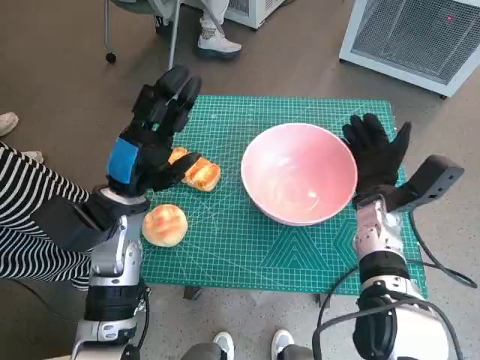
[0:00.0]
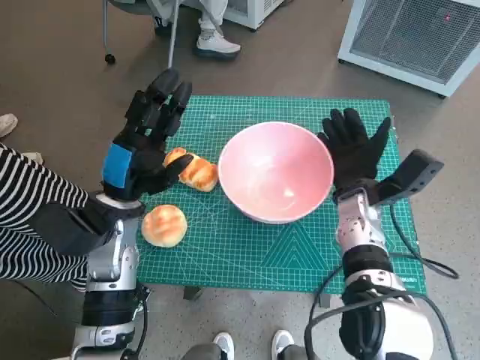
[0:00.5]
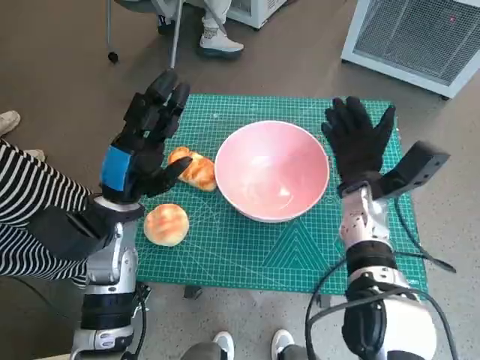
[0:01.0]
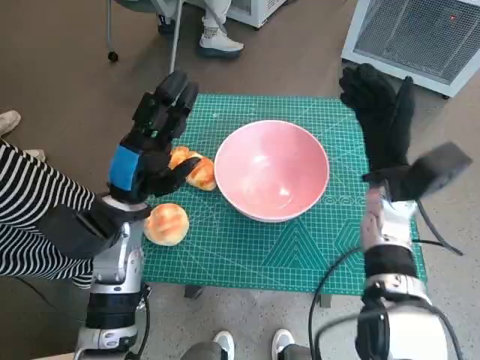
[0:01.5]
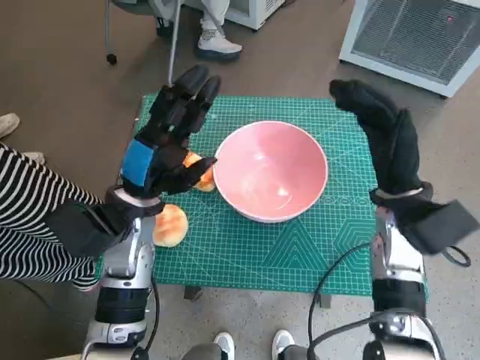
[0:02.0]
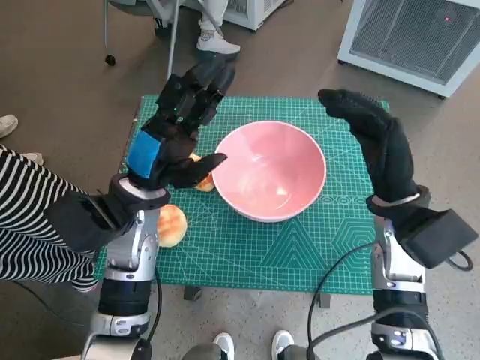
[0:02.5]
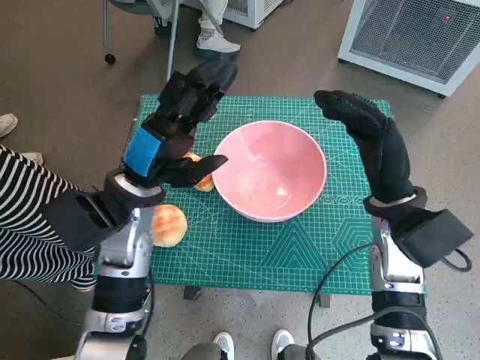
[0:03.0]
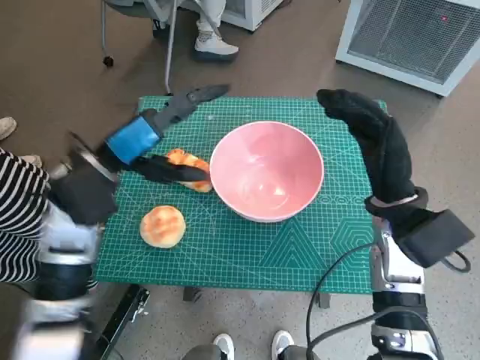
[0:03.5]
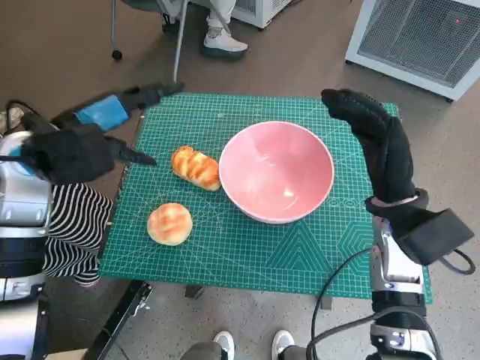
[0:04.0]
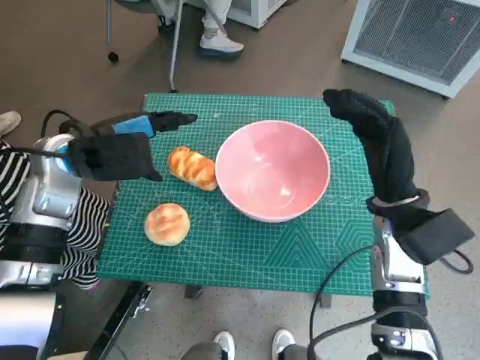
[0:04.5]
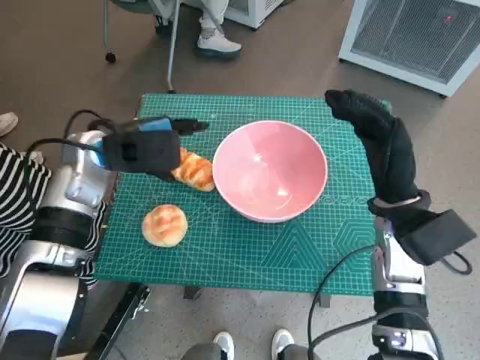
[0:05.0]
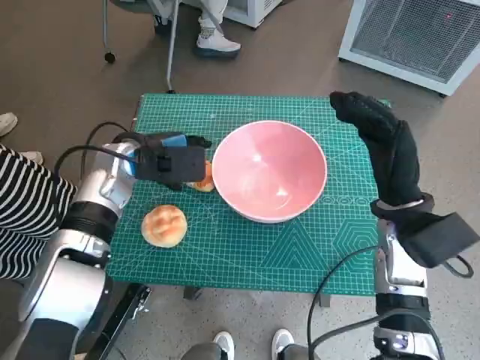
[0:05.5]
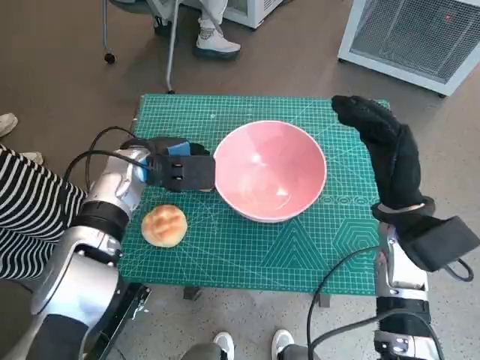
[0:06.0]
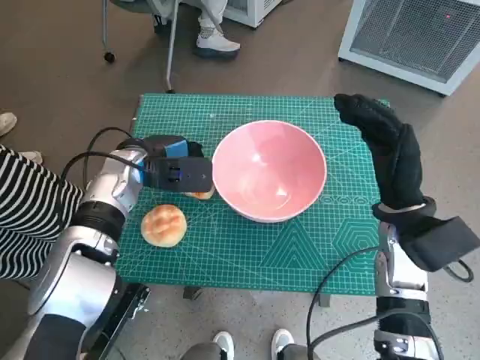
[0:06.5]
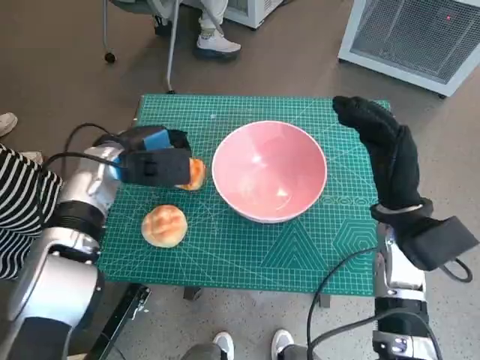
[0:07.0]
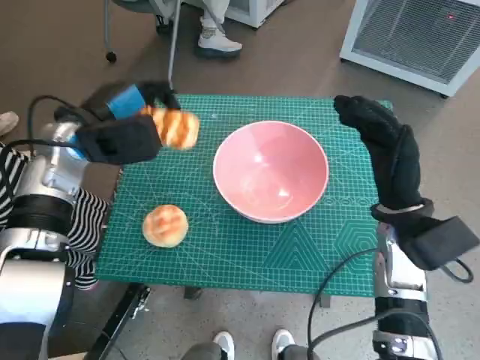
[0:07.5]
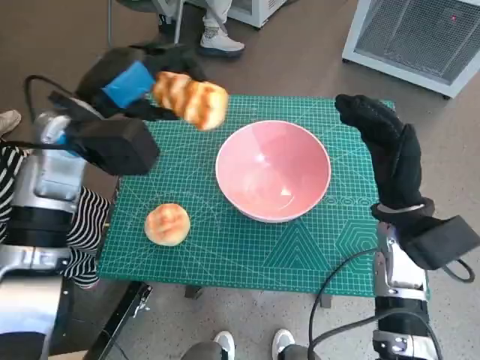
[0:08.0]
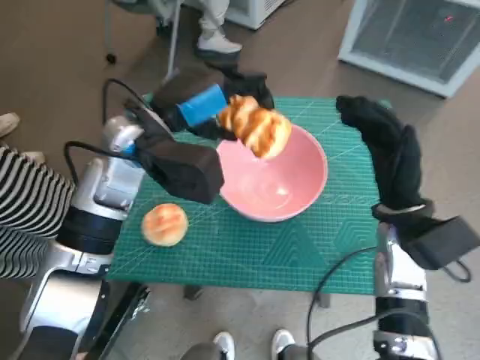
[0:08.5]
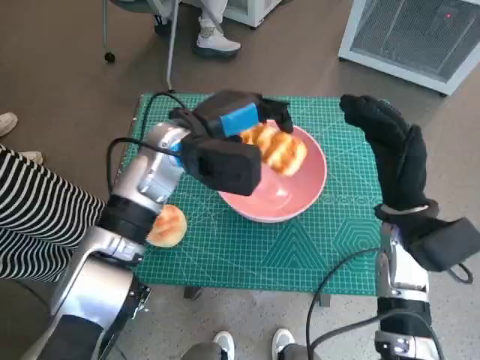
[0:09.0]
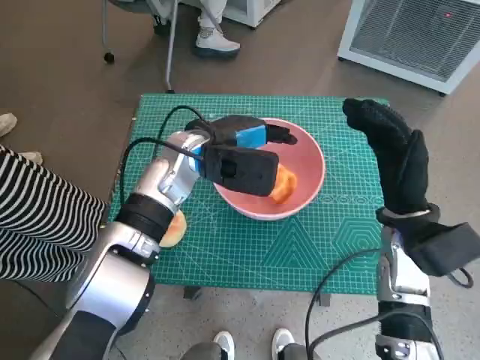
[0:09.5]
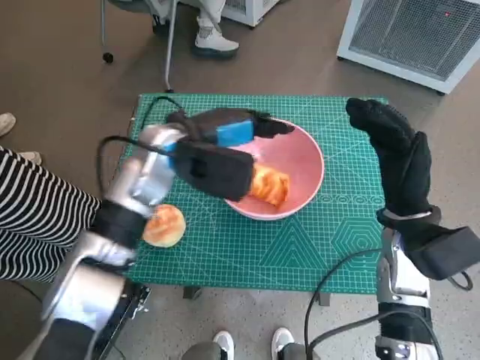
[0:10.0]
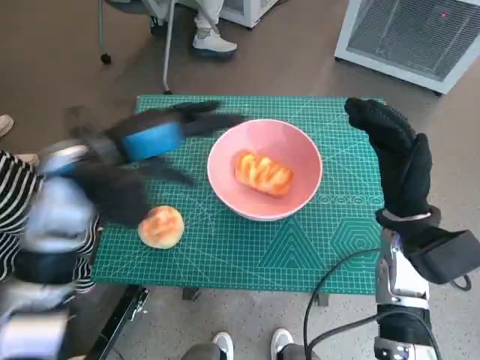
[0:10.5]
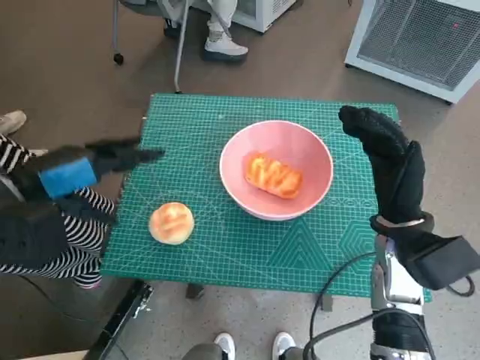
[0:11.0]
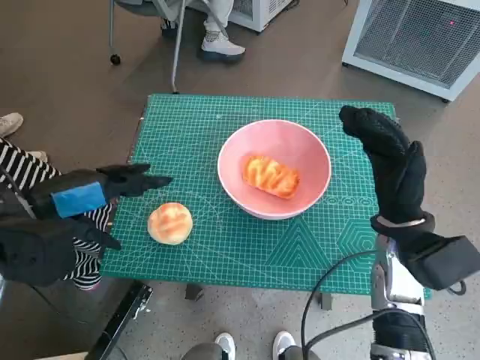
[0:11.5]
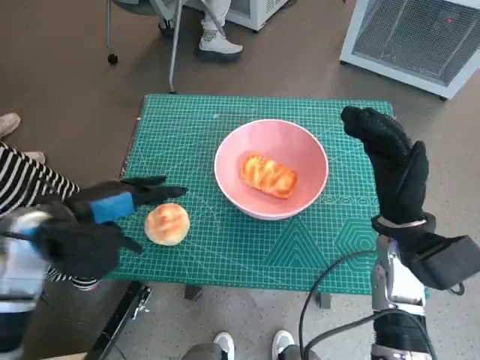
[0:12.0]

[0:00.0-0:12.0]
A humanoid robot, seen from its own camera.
Task of the whole recording: Push the bowl into the center of the table and put the bread into the bowl.
Step, 0:01.5 to 0:06.0: Grasp the long bread with left hand.
Step, 0:06.5 to 0:10.0: Place the long bread in pink bowl with left hand.
0:00.0 to 0:02.0: The right hand is displaced upward by about 5 cm.
0:02.0 to 0:04.0: The left hand moves upward and to the left, roughly 10 cm.
0:04.0 to 0:06.0: The left hand goes some 15 cm downward, to the right and forward.
0:06.0 to 0:08.0: The left hand shifts about 10 cm upward.
0:08.0 to 0:10.0: The left hand heads to the right, covering approximately 10 cm.
0:10.0 to 0:12.0: The left hand travels to the left and backward by some 20 cm.

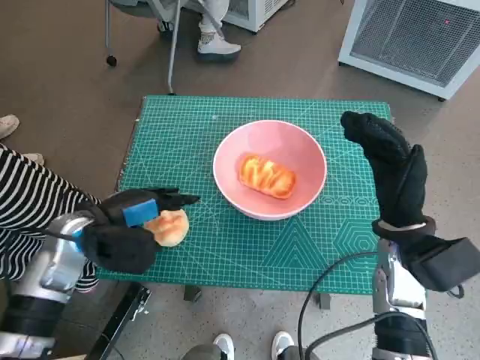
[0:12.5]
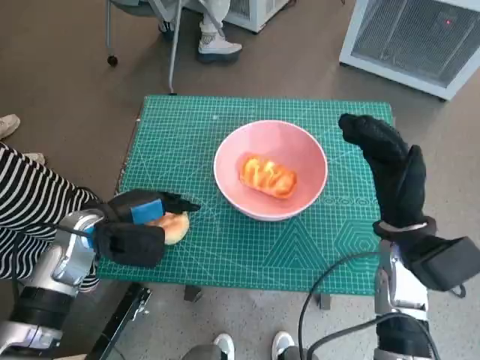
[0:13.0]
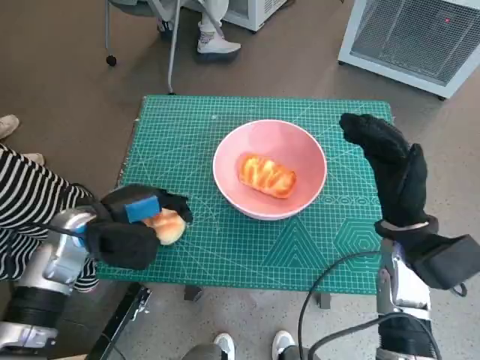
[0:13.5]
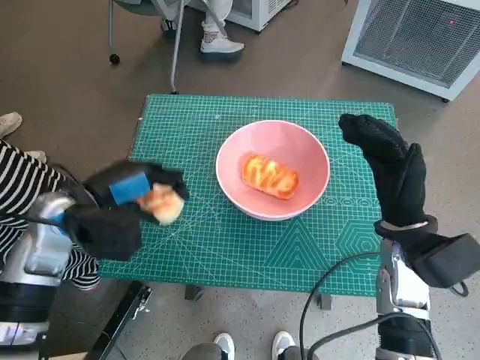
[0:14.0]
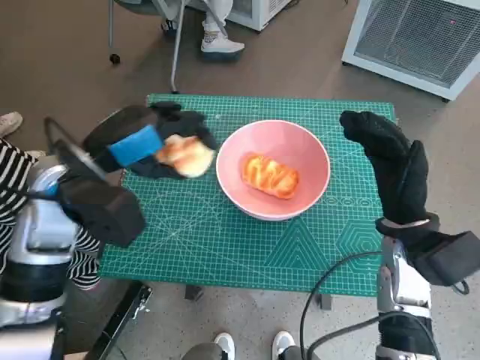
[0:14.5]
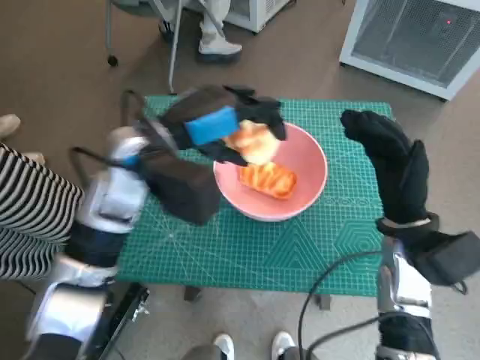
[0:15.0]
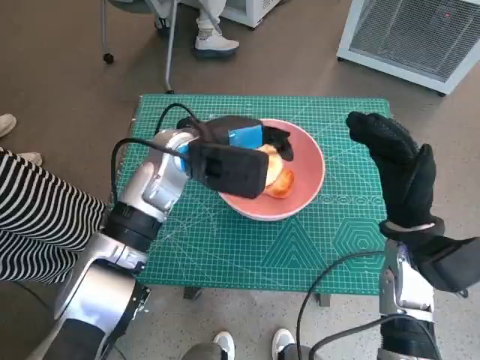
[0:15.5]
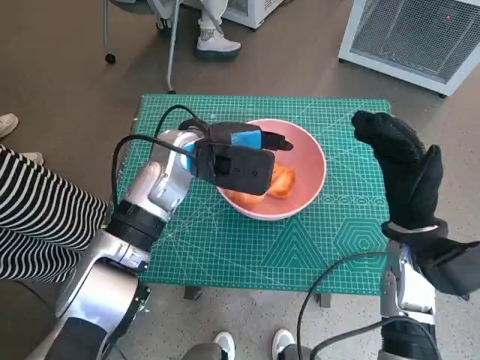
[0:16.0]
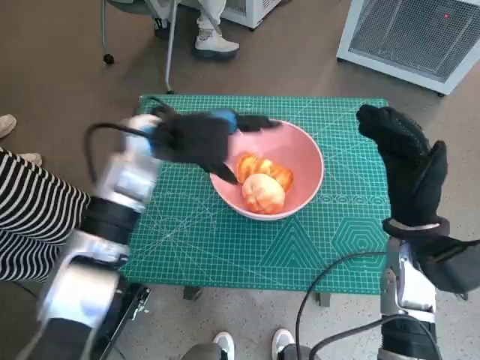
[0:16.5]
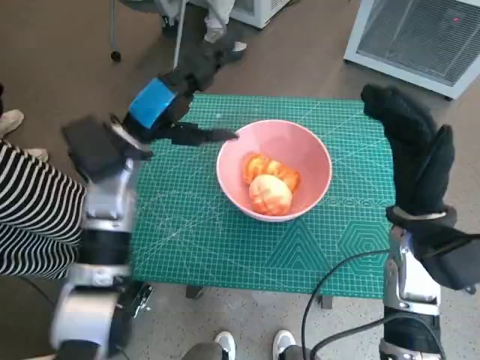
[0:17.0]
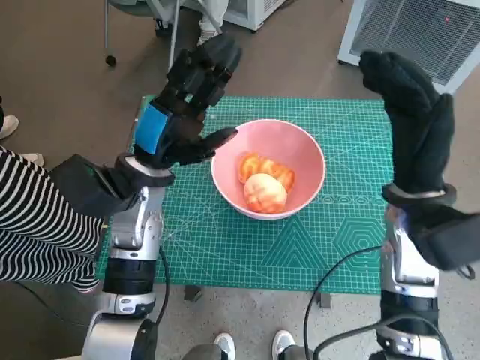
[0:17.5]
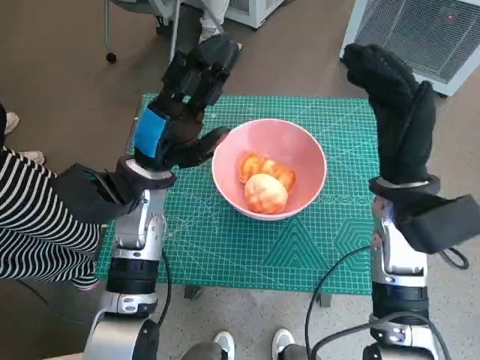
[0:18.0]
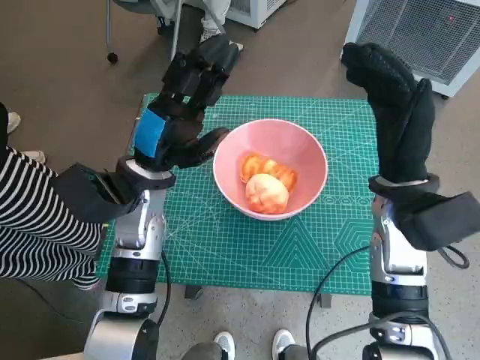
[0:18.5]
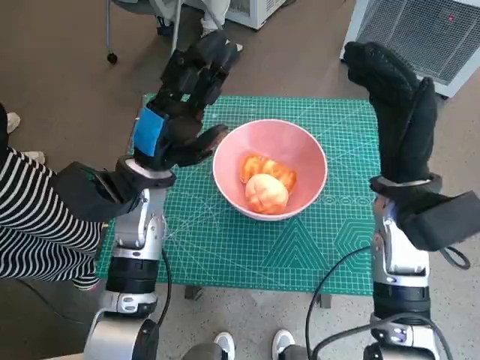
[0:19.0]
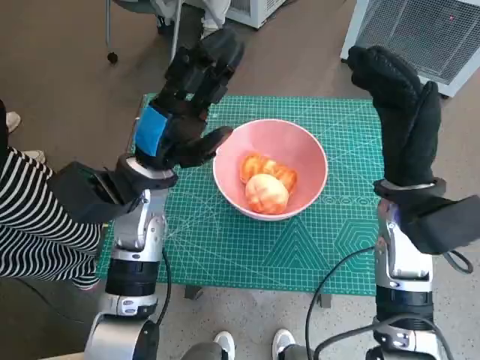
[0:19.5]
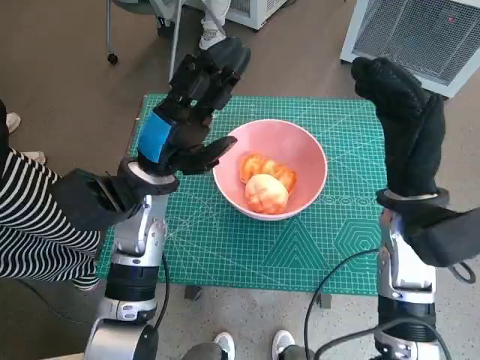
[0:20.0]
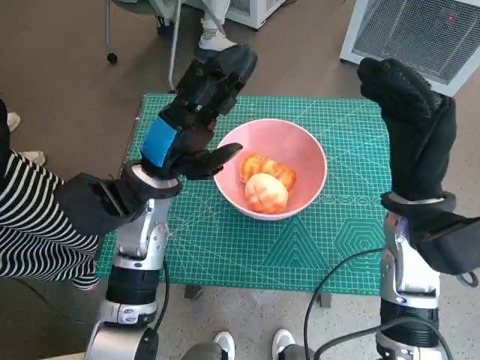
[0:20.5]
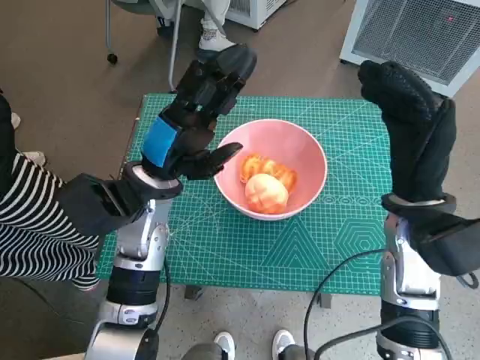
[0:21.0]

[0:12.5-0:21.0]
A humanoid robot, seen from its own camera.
Task of the whole recording: Push the bowl into the center of the table and put the bread into the bowl.
Step, 0:13.5 to 0:16.5: Place the round bread in pink bowl with left hand.
0:12.5 to 0:14.5: The left hand heads upward, covering approximately 10 cm.
0:14.5 to 0:16.5: The left hand moves to the right and forward, about 10 cm.
0:16.5 to 0:19.0: The right hand travels upward by some 5 cm. Meanwhile the left hand moves approximately 5 cm.

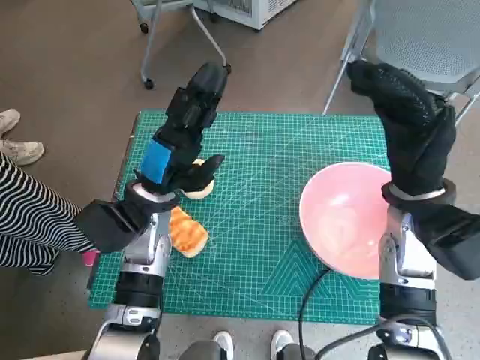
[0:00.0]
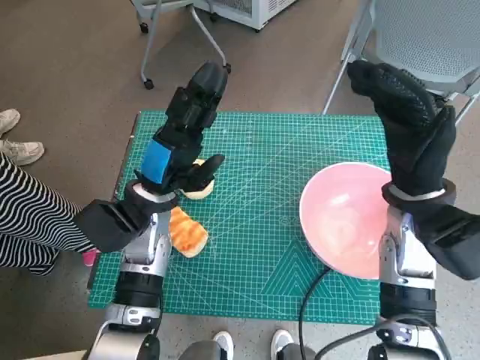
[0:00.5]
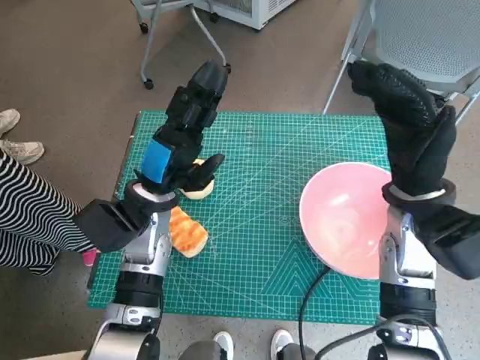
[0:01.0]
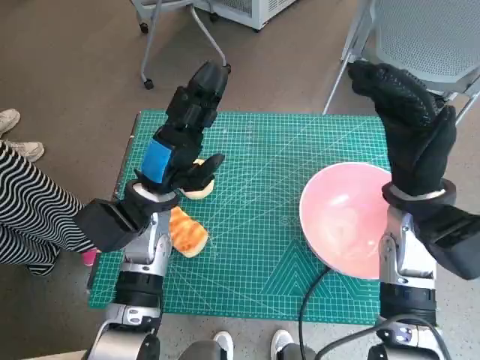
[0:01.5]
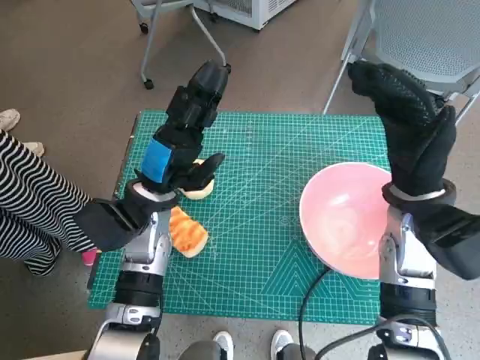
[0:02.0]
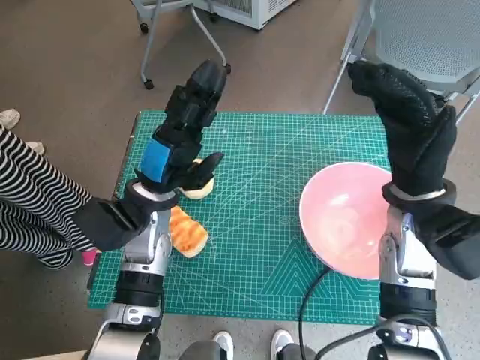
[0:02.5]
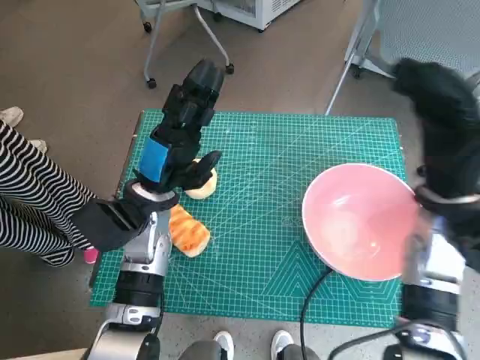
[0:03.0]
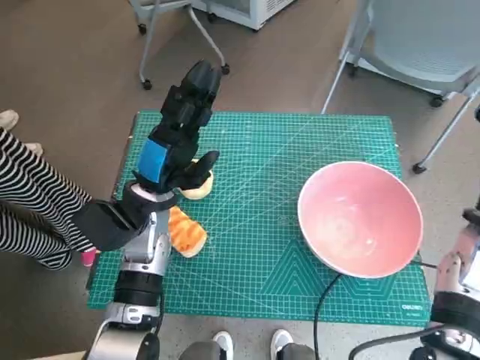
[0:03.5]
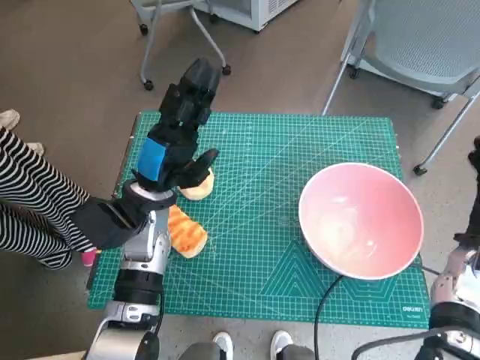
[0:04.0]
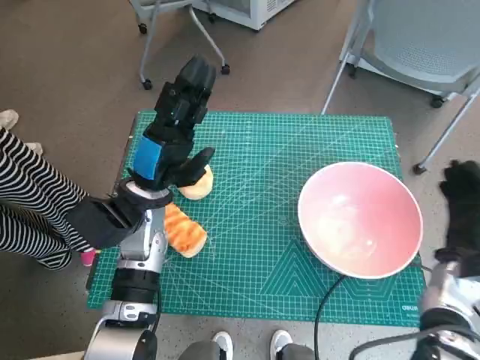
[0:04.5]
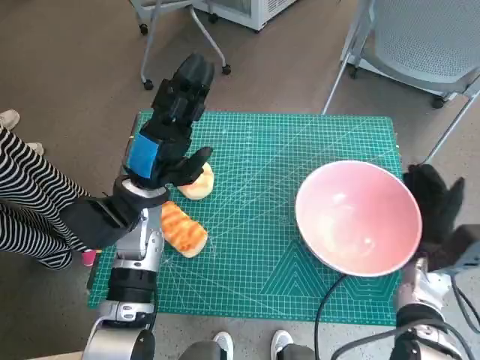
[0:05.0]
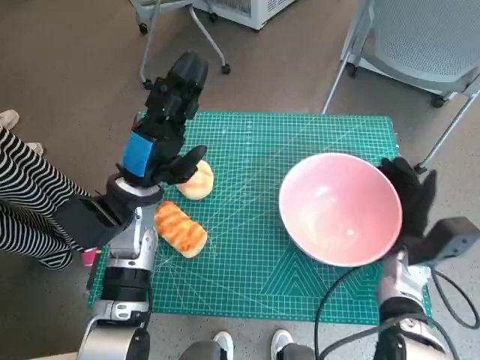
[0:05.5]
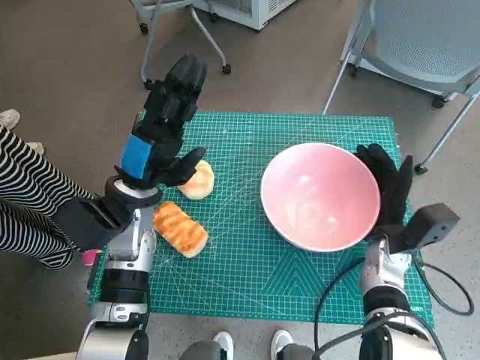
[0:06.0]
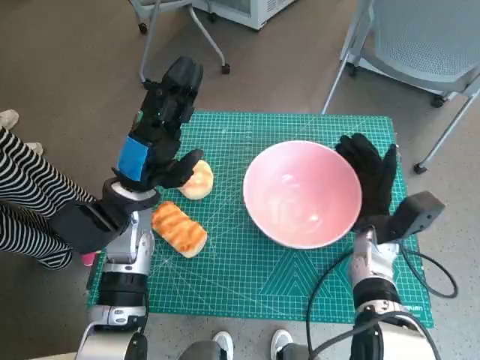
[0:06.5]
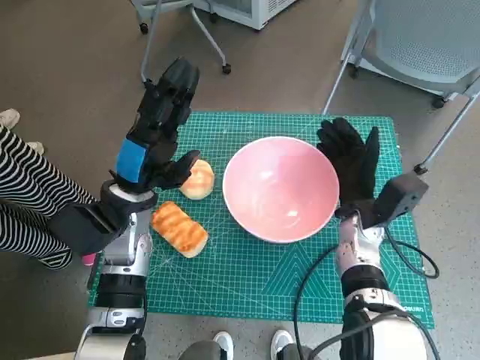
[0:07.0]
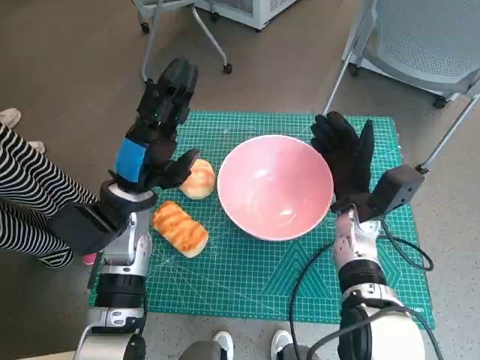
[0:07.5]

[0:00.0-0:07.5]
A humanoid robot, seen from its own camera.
Task of the whole recording: Push the bowl into the center of the table and put the bread into the bowl.
0:02.0 to 0:04.0: The right hand moves to the right and downward, about 15 cm.
0:04.0 to 0:05.5: The right hand moves to the left and downward, about 10 cm.
0:05.5 to 0:07.5: The right hand heads to the left, covering approximately 10 cm.
